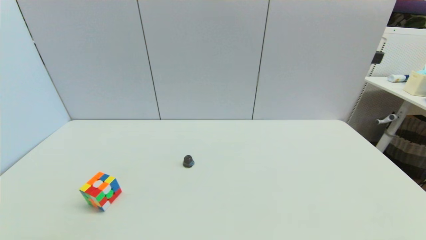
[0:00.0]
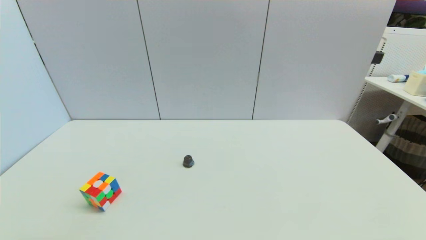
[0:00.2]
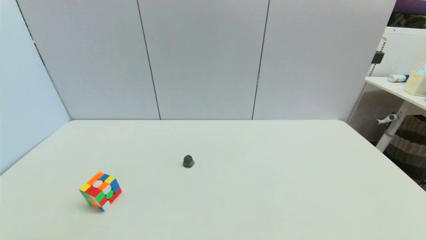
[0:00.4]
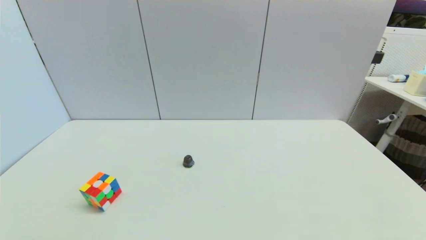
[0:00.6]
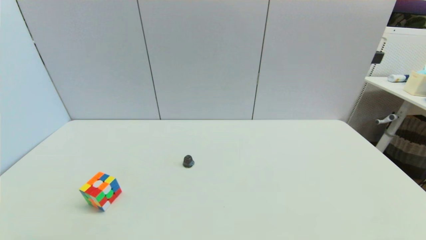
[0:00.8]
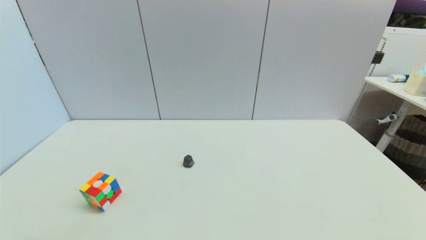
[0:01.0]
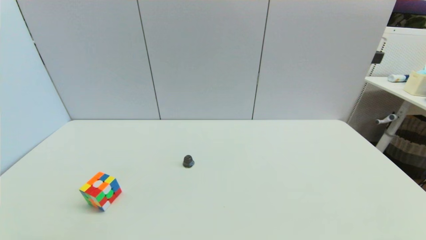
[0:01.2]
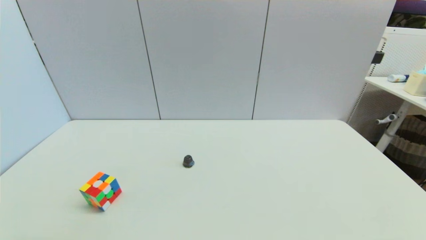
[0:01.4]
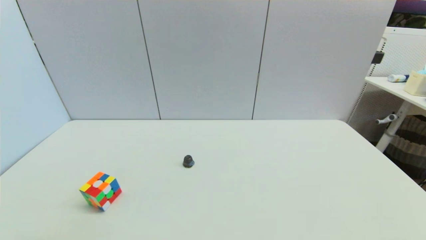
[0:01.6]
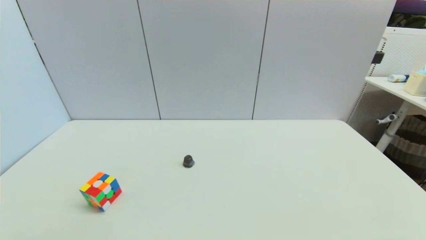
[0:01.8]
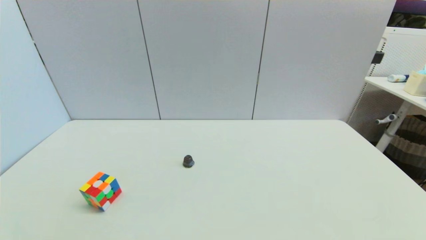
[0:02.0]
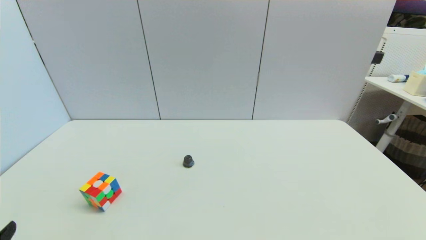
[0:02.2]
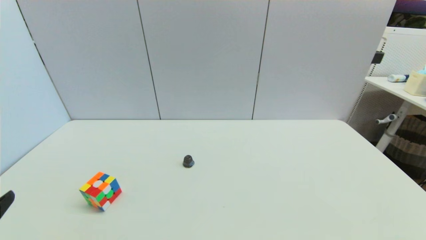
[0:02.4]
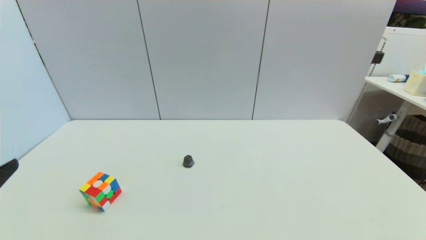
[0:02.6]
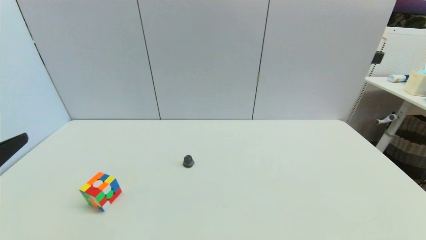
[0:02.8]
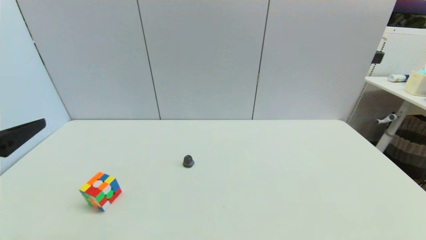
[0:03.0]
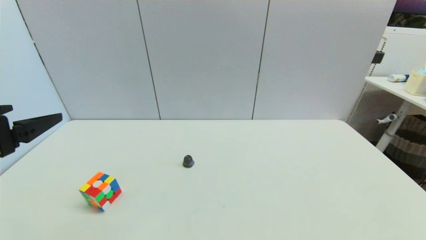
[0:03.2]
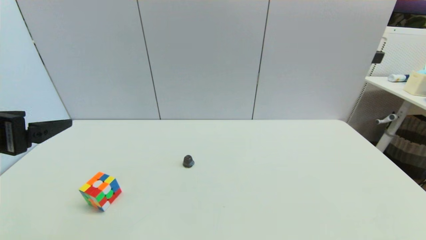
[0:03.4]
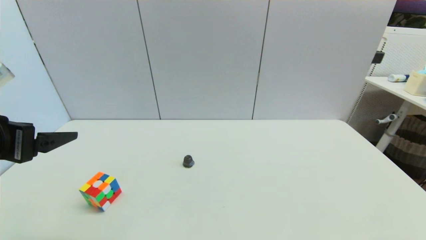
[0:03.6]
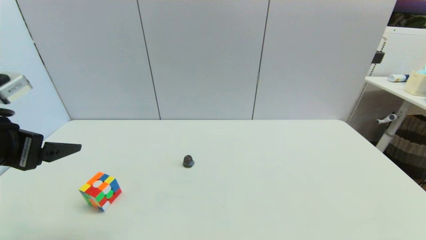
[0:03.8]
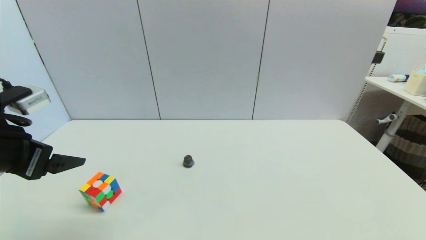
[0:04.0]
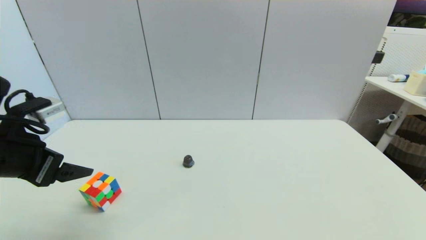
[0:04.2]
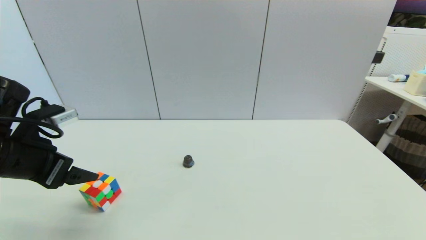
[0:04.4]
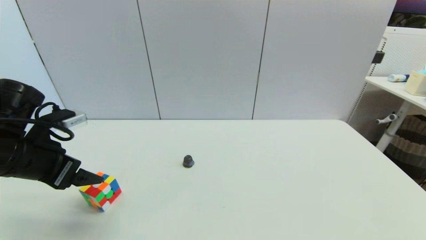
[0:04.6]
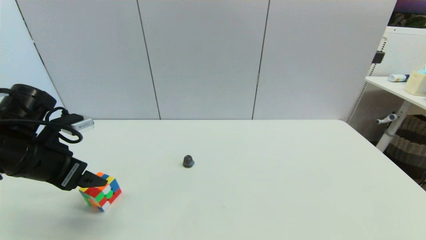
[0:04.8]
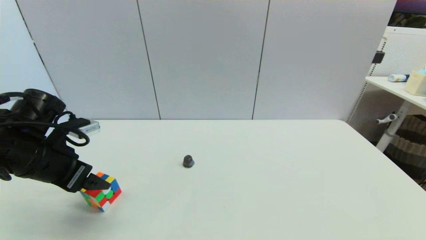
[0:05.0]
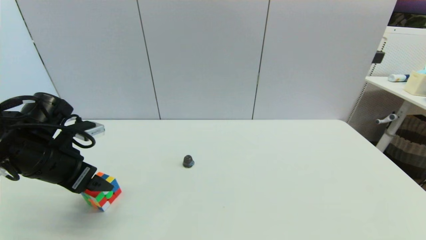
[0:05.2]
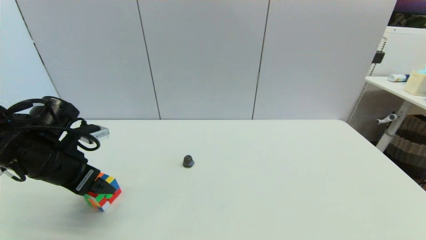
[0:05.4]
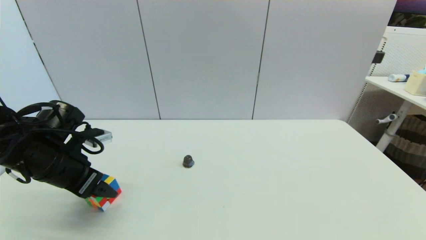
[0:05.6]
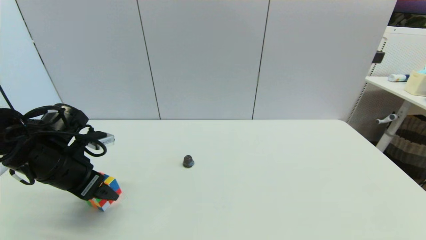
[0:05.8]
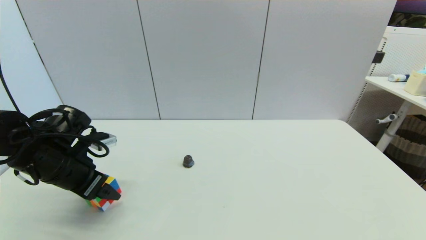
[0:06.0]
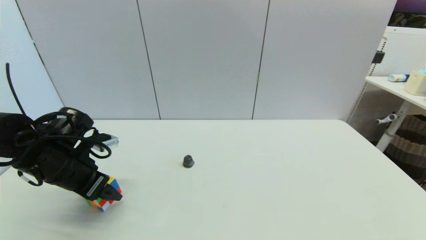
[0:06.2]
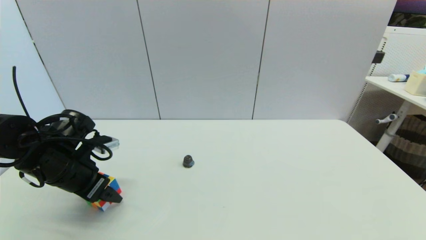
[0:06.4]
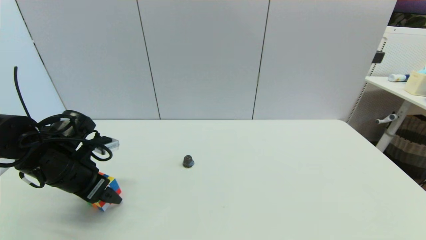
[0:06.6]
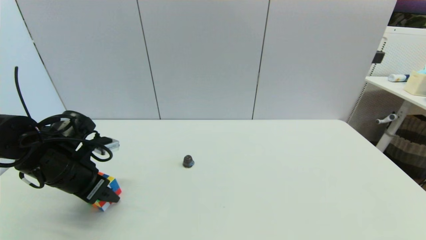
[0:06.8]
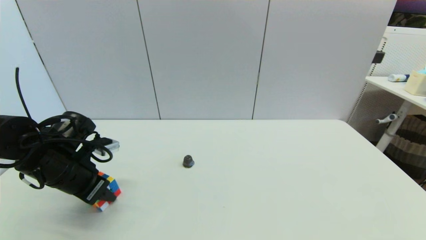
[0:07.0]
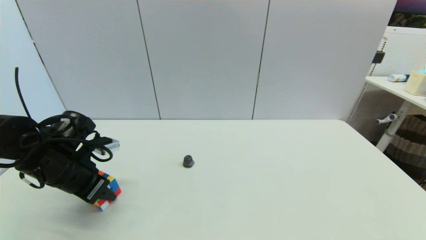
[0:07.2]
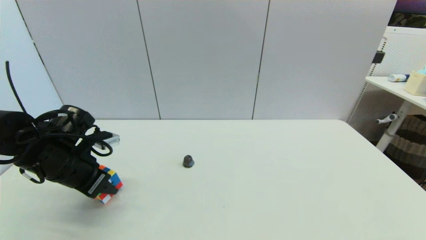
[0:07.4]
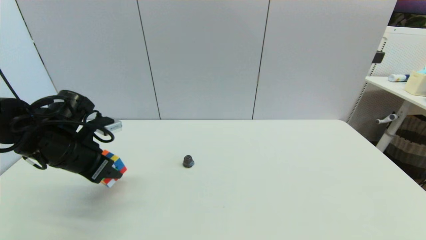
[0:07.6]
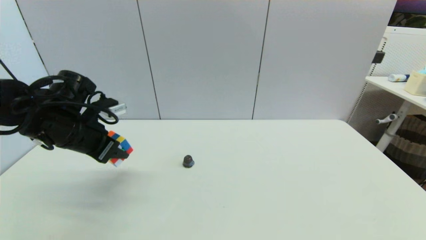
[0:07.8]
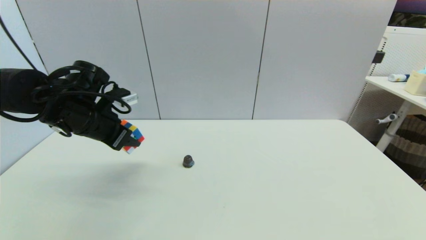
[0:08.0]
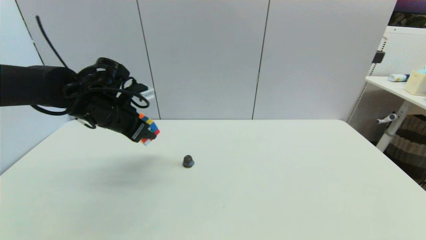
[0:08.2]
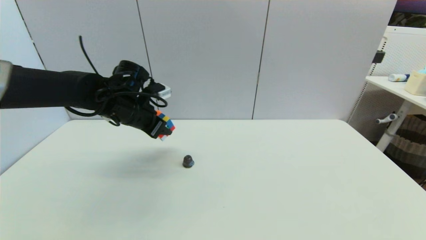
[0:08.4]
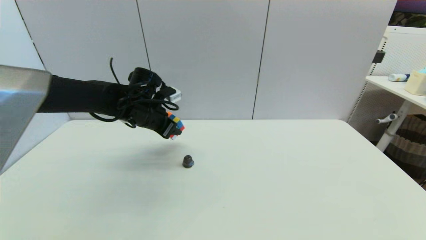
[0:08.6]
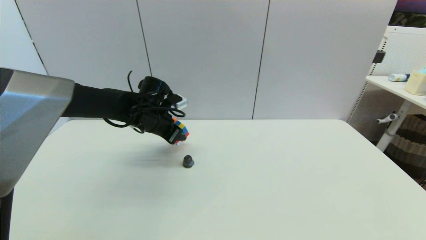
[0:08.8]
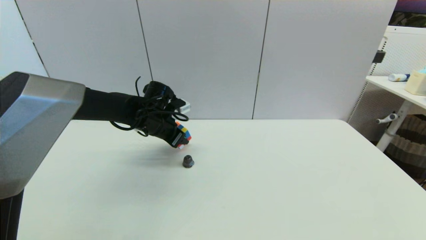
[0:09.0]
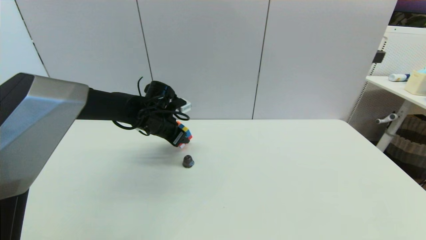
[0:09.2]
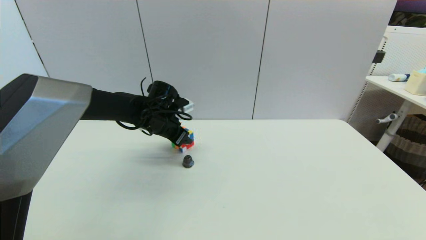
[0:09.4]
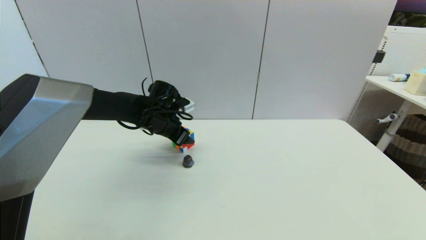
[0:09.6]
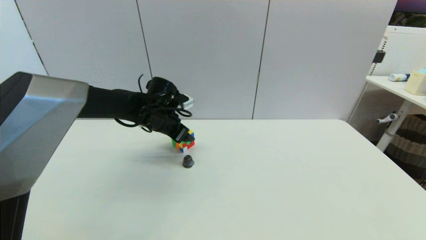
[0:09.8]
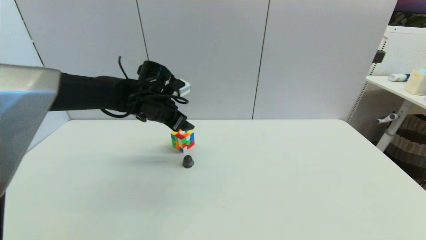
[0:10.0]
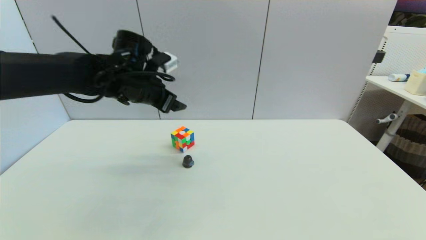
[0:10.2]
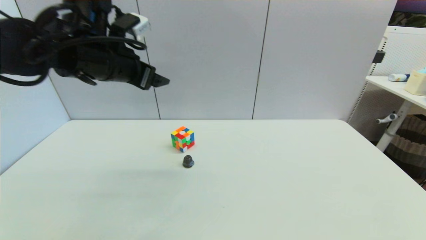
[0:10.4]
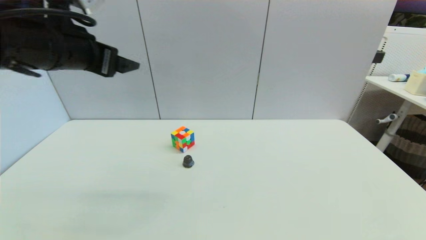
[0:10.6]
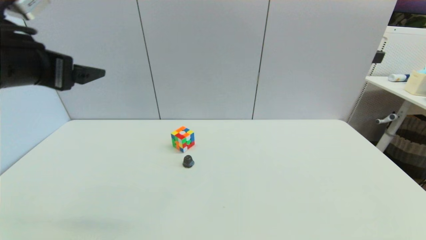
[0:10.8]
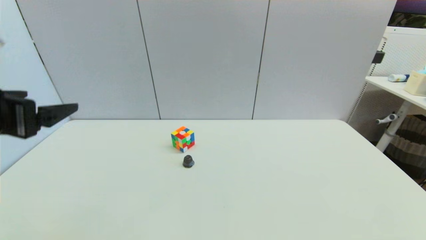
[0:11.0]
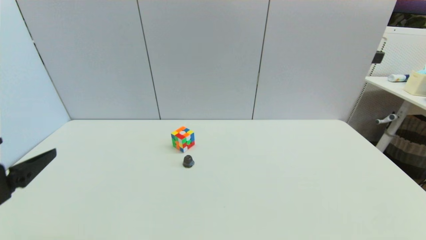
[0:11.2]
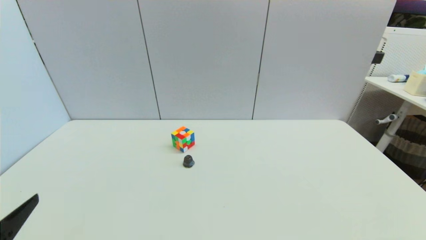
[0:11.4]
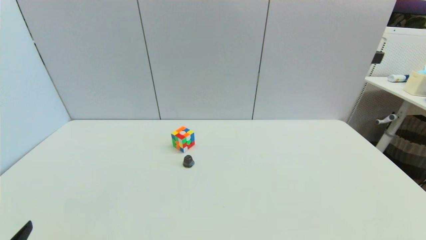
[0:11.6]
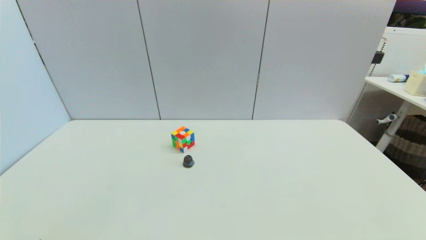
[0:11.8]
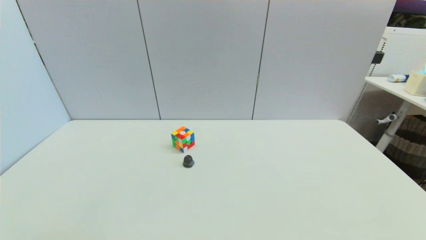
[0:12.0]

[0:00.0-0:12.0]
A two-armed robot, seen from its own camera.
Step, 0:02.2 to 0:07.2: Grasp the magic cube with left gripper.
Step, 0:07.4 to 0:10.0: Place the magic cube on the table with left gripper.
0:00.0 to 0:01.6: Both grippers stay put.
0:01.6 to 0:03.0: The left gripper goes about 25 cm upward and forward.
0:03.0 to 0:04.4: The left gripper is displaced forward and downward by roughly 10 cm.
0:04.4 to 0:06.0: The left gripper goes some 5 cm downward.
0:06.0 to 0:07.6: The left gripper closes up.
0:07.6 to 0:09.0: The left gripper heads forward and to the right, covering about 20 cm.
0:09.0 to 0:10.4: The left gripper travels upward and backward by roughly 20 cm, and opens up.
0:10.4 to 0:12.0: The left gripper goes approximately 40 cm backward and downward.

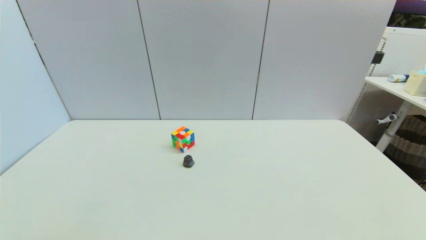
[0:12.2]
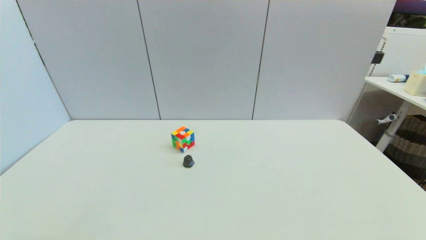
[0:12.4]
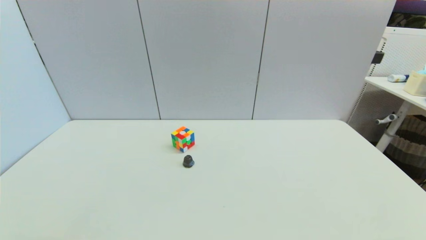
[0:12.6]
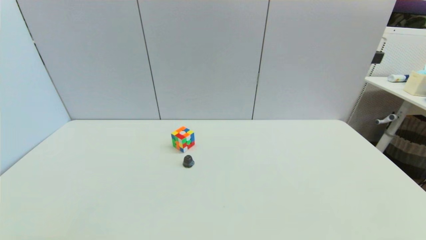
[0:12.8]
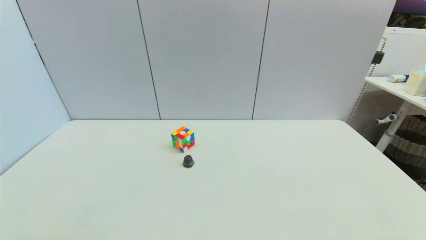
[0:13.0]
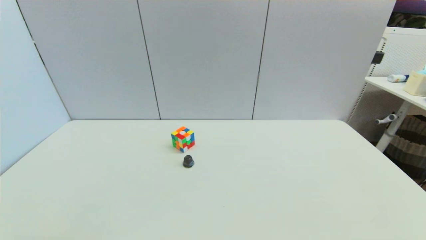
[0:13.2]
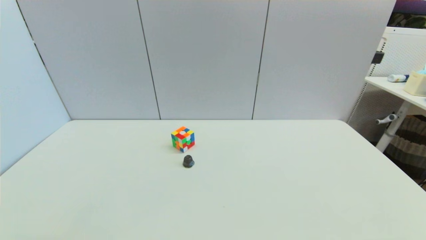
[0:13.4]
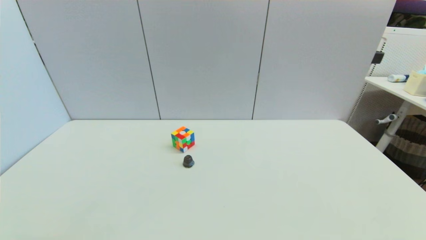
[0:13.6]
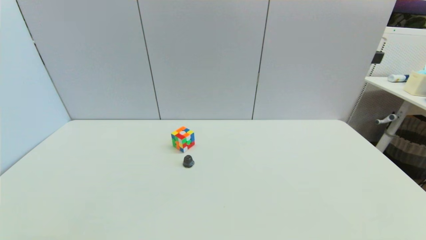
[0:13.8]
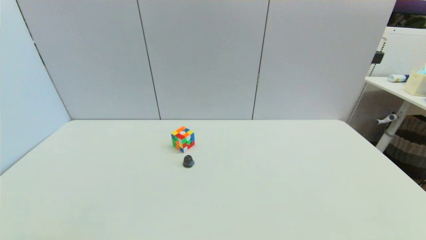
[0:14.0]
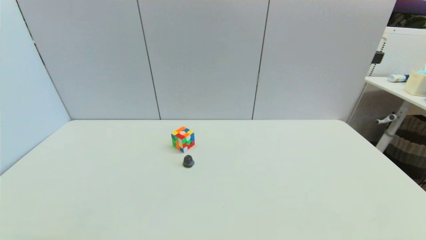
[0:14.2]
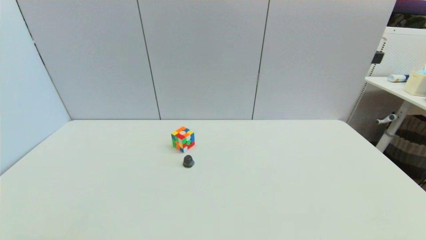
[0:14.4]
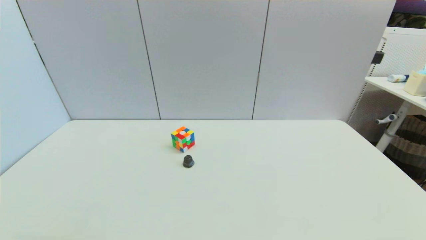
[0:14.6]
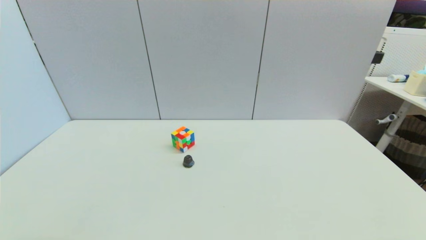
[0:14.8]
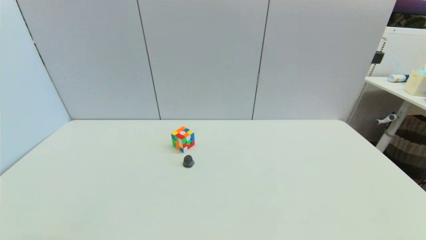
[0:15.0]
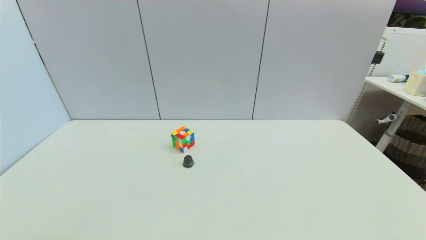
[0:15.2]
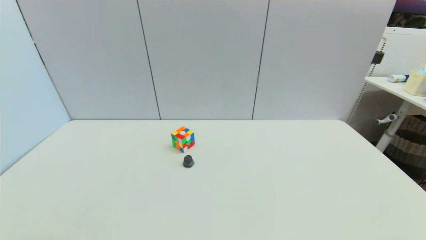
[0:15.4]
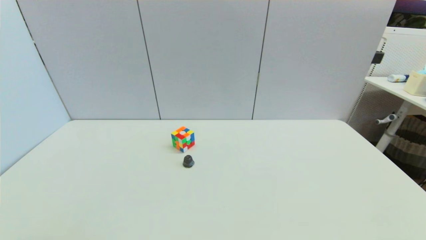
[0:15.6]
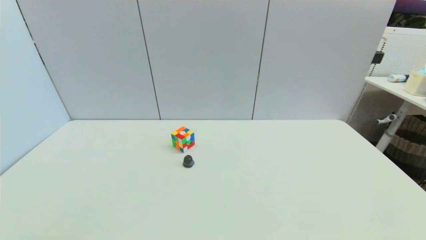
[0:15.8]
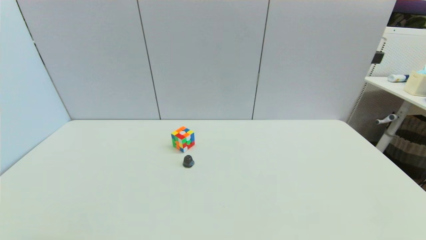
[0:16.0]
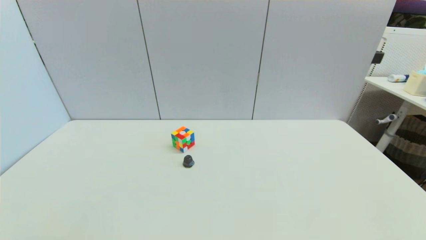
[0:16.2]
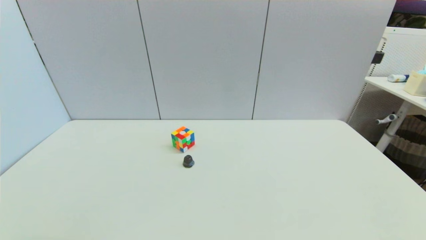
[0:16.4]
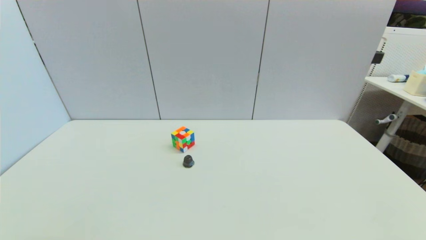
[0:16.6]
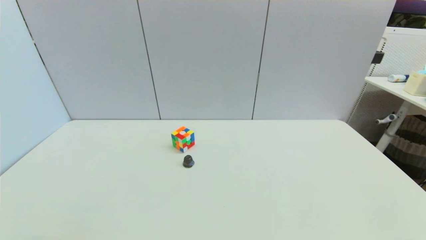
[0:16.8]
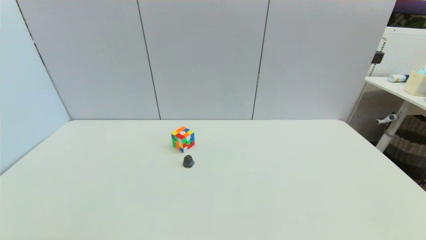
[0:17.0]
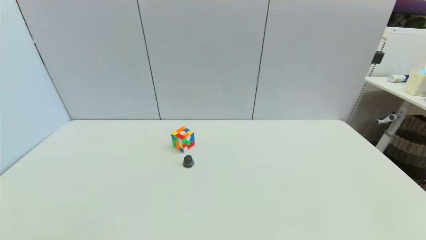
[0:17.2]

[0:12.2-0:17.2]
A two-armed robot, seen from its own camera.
0:13.8 to 0:17.2: Both grippers stay put.
